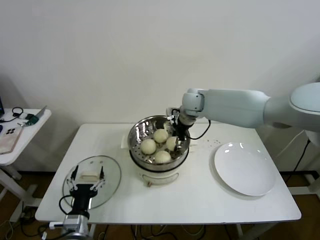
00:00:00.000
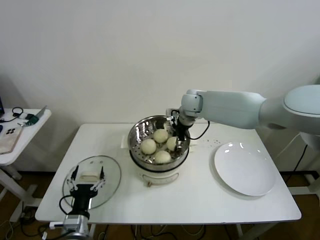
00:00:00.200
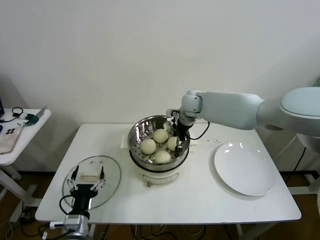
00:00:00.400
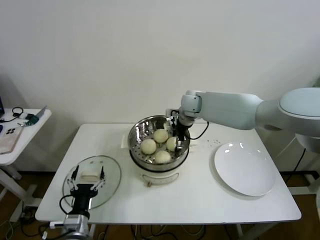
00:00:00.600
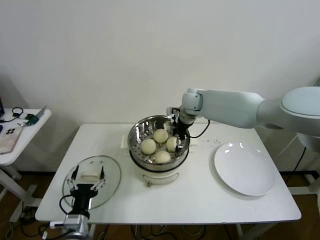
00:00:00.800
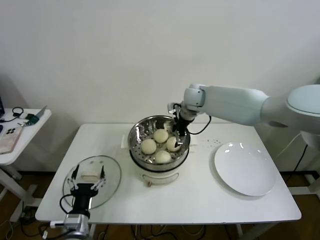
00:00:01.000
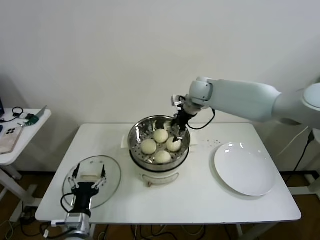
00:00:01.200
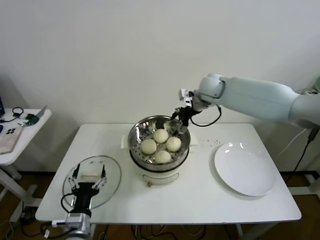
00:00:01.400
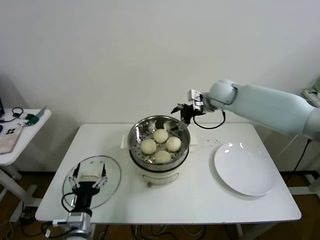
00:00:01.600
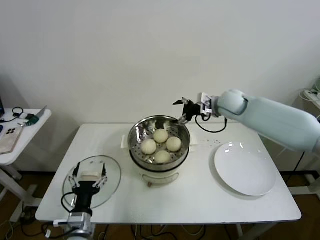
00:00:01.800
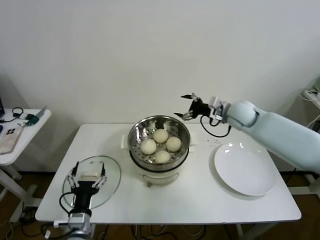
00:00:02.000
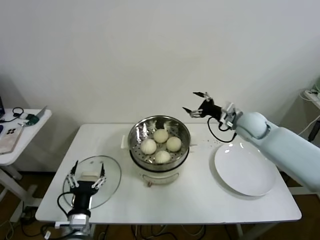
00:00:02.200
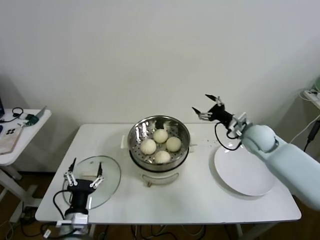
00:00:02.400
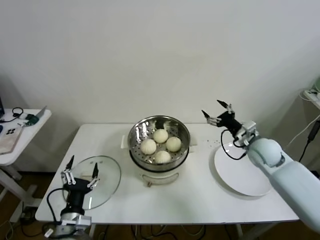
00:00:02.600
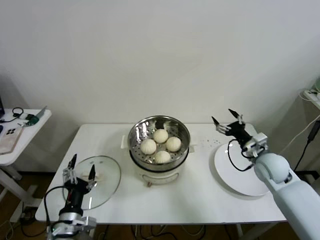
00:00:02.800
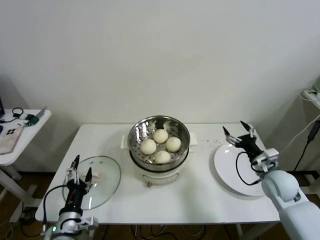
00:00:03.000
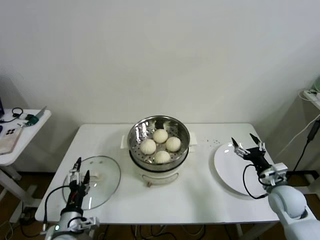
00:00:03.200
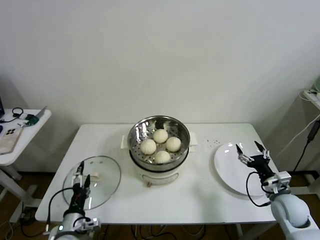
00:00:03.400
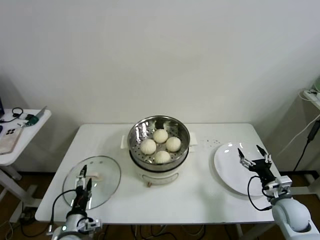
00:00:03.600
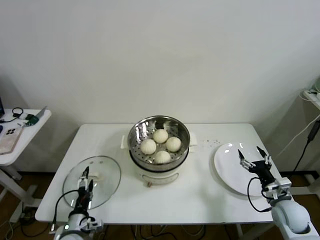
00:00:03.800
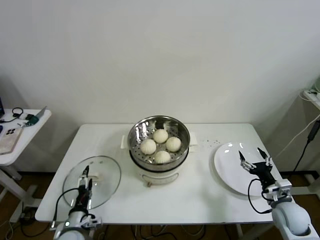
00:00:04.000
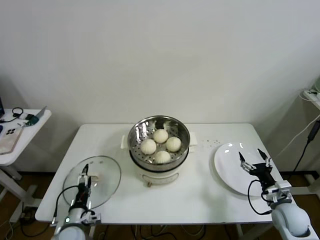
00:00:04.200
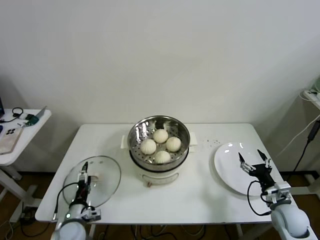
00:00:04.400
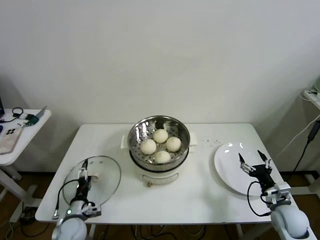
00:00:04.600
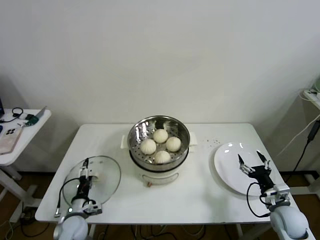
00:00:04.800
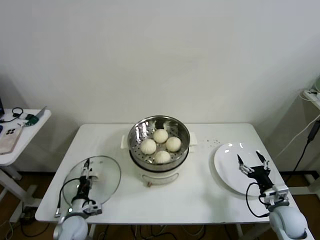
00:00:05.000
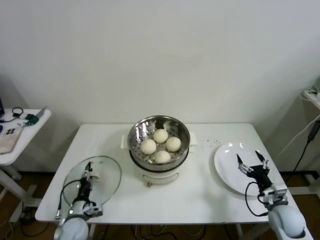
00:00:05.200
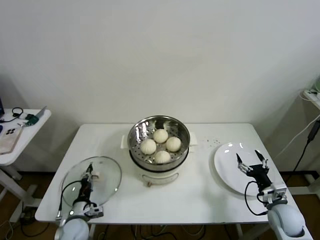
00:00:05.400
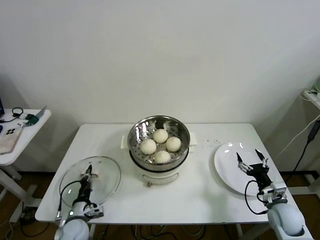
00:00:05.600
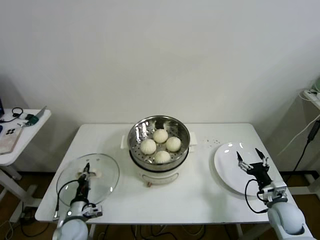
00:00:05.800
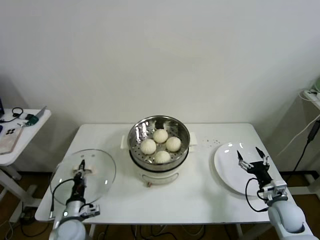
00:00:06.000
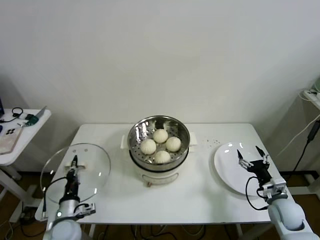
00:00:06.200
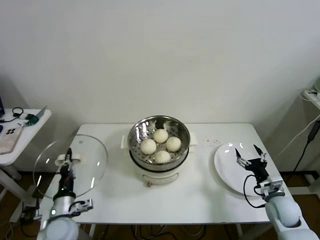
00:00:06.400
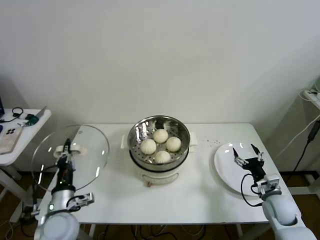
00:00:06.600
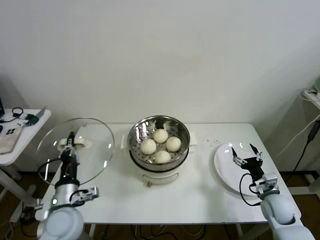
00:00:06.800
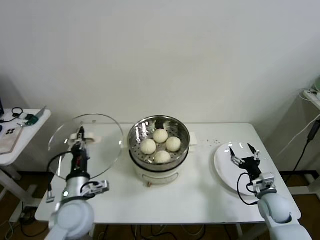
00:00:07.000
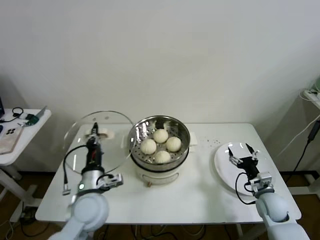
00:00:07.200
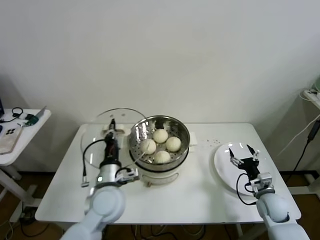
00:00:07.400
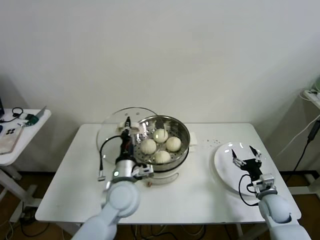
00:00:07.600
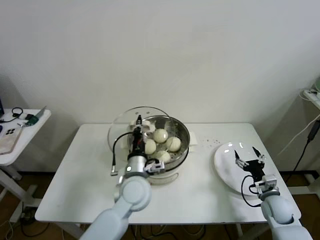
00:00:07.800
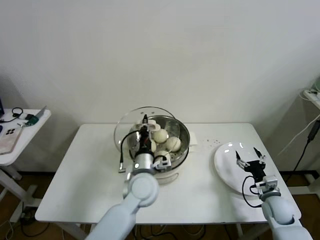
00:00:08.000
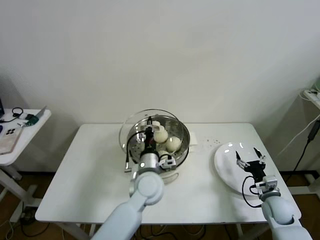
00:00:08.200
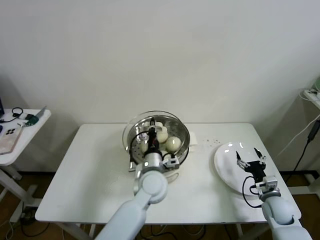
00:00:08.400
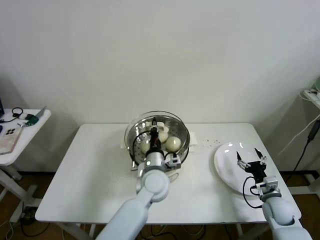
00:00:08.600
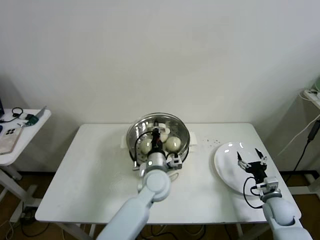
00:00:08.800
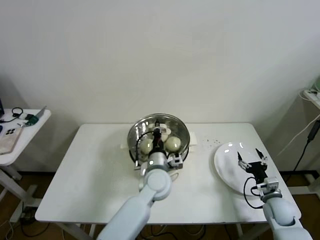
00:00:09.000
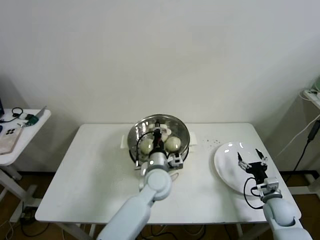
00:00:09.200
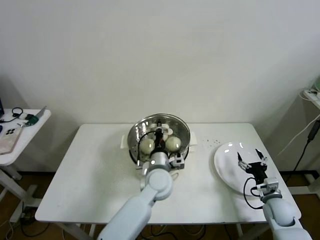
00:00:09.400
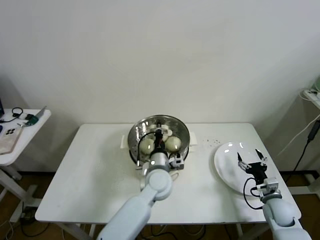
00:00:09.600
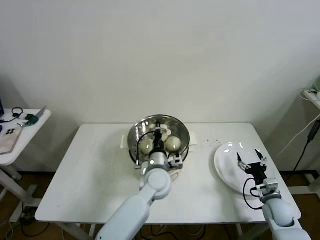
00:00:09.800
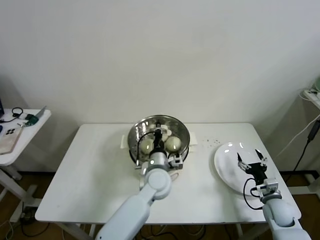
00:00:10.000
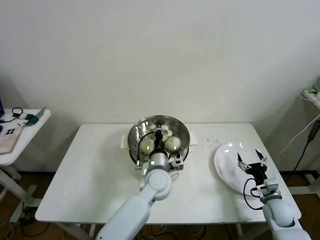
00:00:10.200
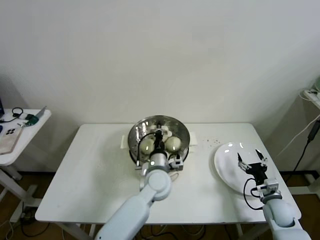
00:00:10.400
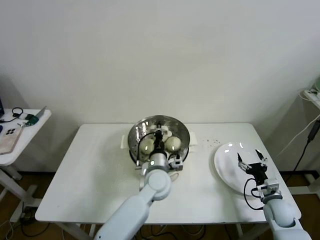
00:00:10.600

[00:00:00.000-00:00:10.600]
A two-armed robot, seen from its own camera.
Task of the whole recording: take steamed baozi put them in steamer then cover it.
Step, 00:00:01.000 to 00:00:05.400: Grasp the pot lid with left gripper.
00:00:00.000 to 00:00:01.600: The right gripper travels to the right by some 10 cm, and opens up.
00:00:01.600 to 00:00:03.000: The right gripper travels backward, downward and to the right by approximately 35 cm.
00:00:03.000 to 00:00:04.600: The left gripper is displaced downward and forward by roughly 15 cm; the right gripper is displaced backward and downward by approximately 10 cm.
00:00:04.600 to 00:00:06.000: The left gripper closes.
00:00:06.000 to 00:00:07.600: The left gripper goes some 25 cm to the right and upward.
00:00:07.600 to 00:00:09.000: The left gripper moves to the right and forward, approximately 10 cm.
00:00:09.000 to 00:00:10.600: The two grippers keep their place.

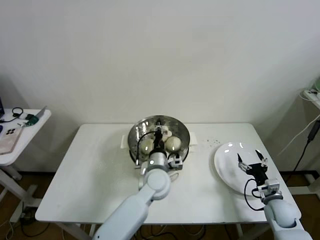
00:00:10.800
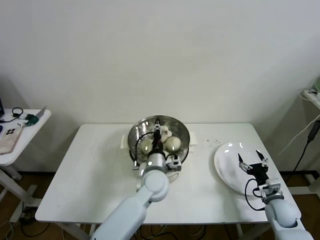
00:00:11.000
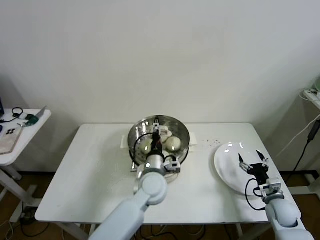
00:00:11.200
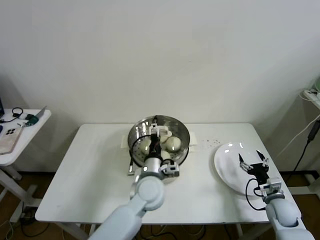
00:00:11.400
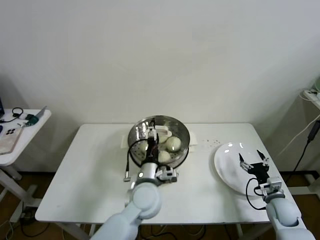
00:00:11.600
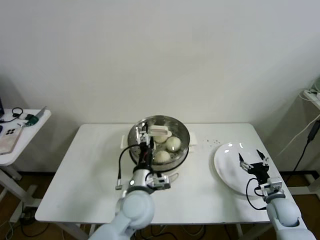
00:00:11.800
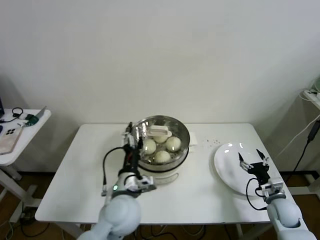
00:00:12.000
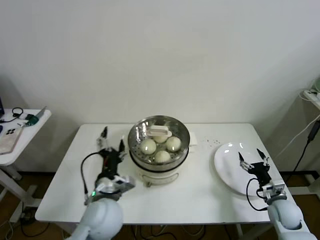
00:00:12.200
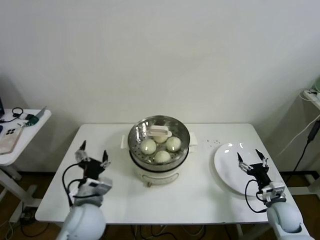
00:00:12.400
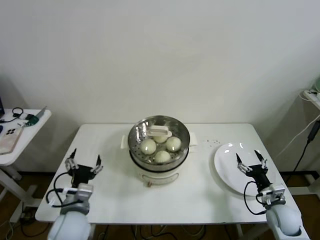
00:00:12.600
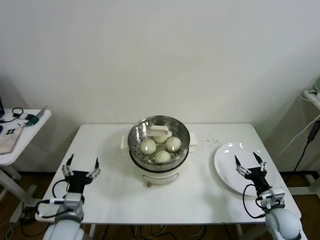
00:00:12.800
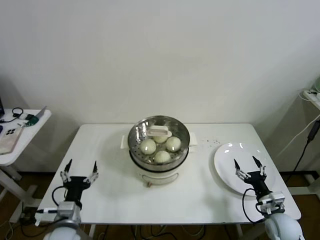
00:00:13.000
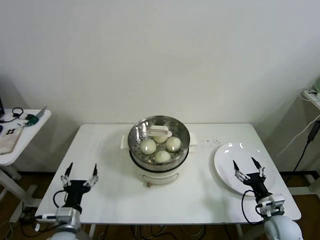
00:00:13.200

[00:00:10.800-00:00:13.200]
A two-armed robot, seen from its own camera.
Task of the whole recording: take steamed baozi put them in steamer then cover it.
00:00:10.800 to 00:00:12.000: The left gripper moves backward and to the left, roughly 10 cm, and opens its fingers.
00:00:12.000 to 00:00:13.200: The left gripper travels to the left and downward by approximately 20 cm, while the right gripper shifts approximately 5 cm backward.
